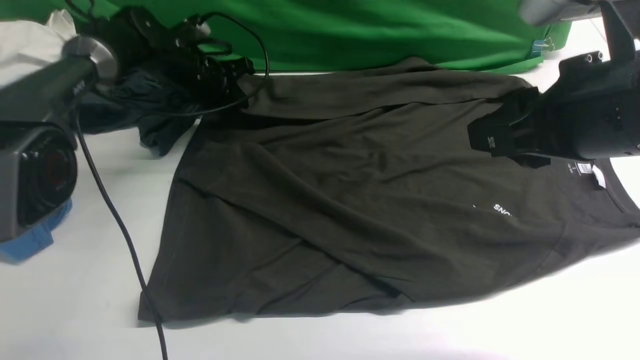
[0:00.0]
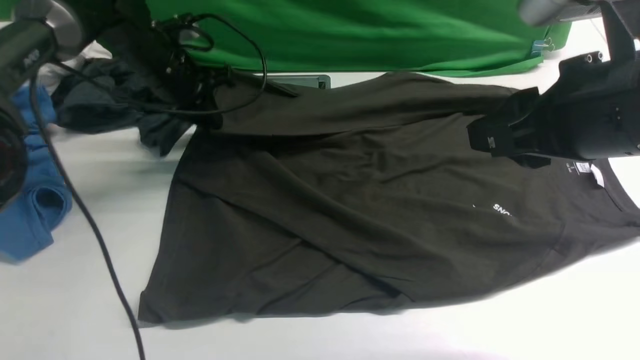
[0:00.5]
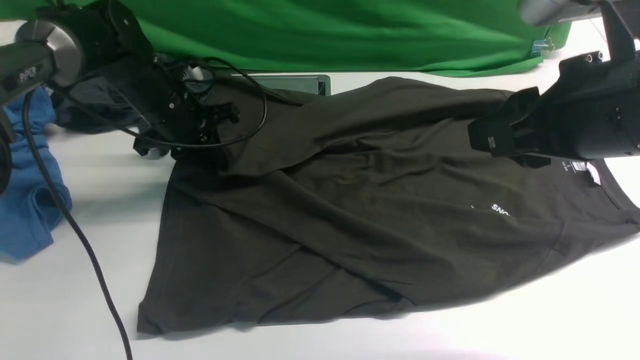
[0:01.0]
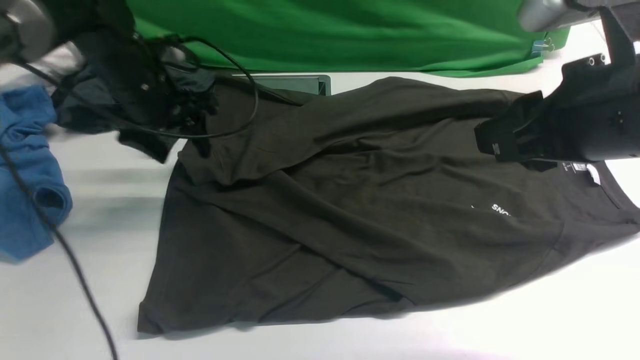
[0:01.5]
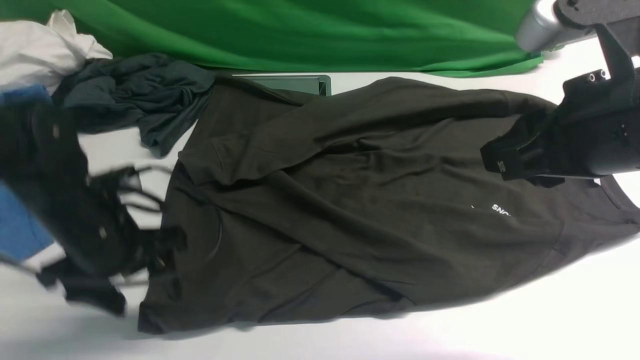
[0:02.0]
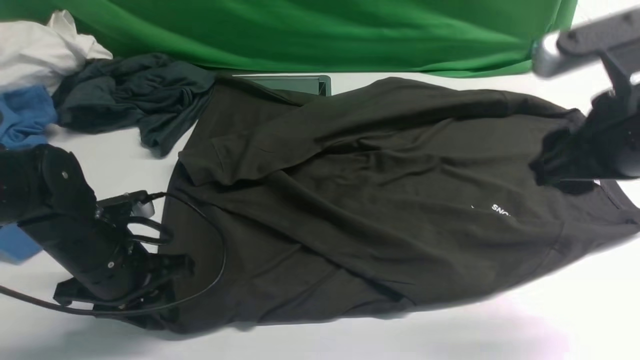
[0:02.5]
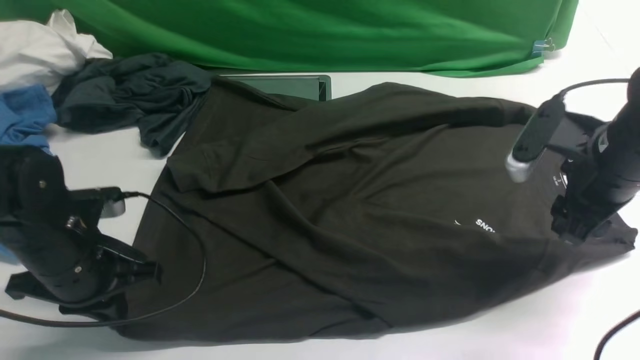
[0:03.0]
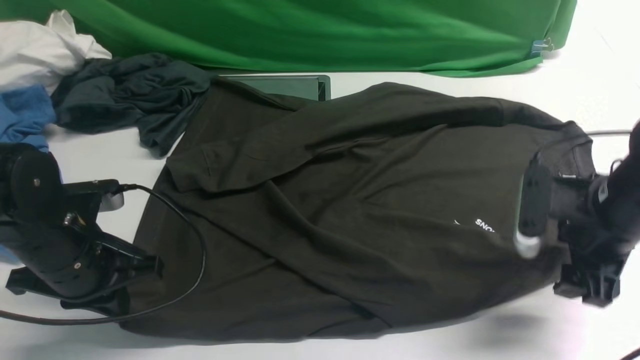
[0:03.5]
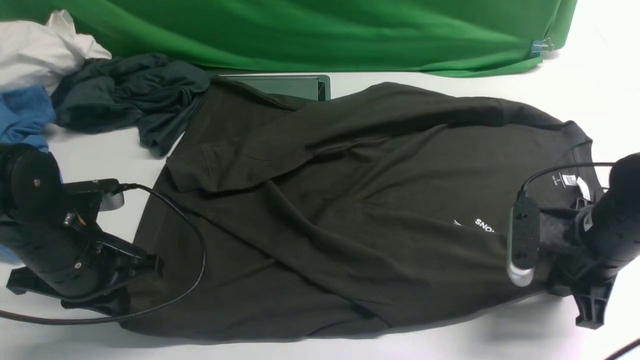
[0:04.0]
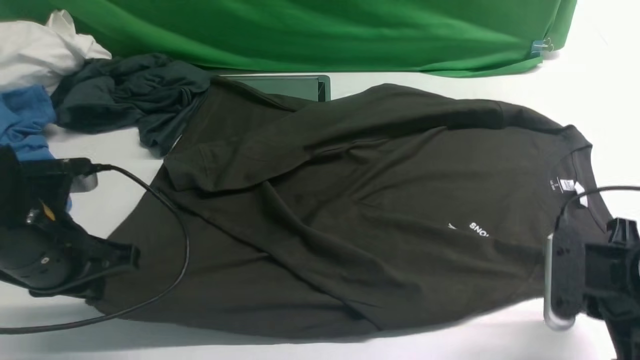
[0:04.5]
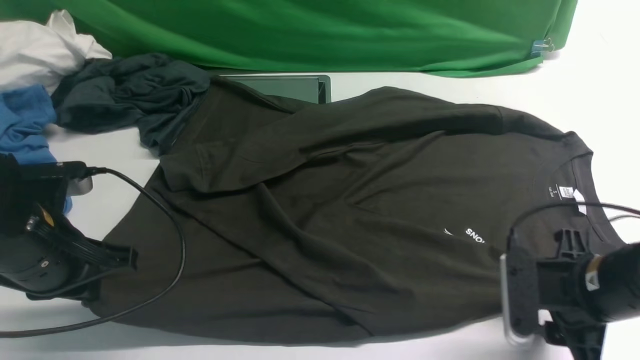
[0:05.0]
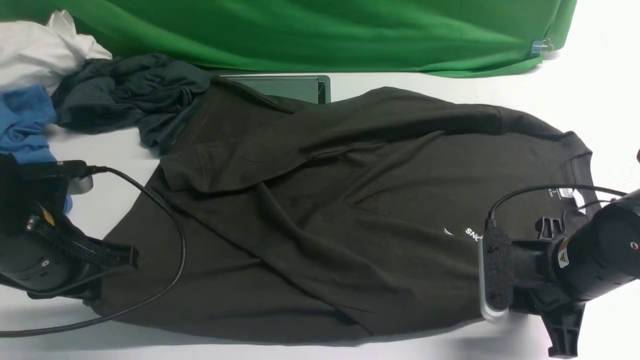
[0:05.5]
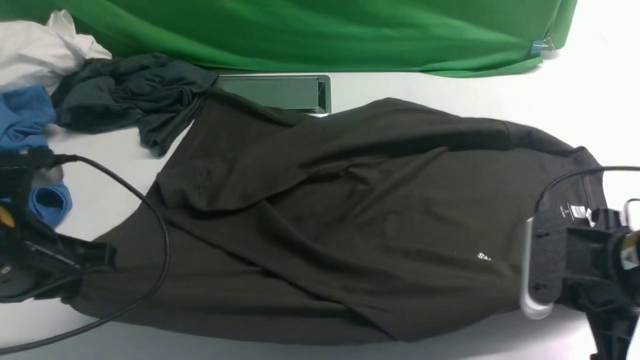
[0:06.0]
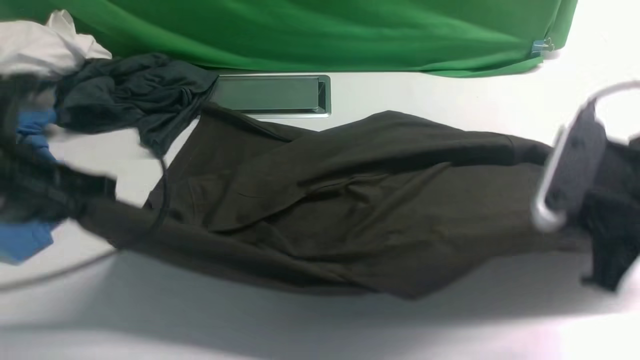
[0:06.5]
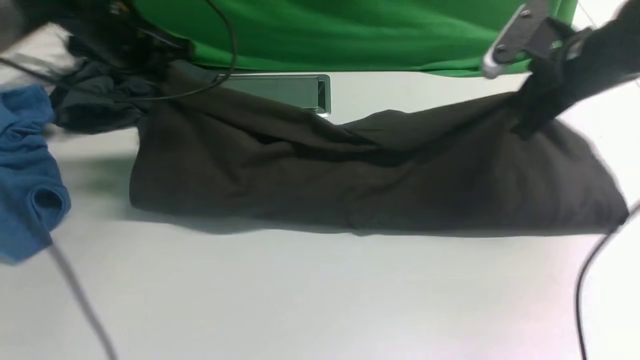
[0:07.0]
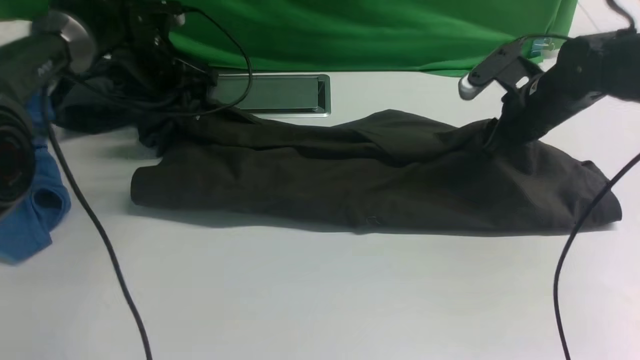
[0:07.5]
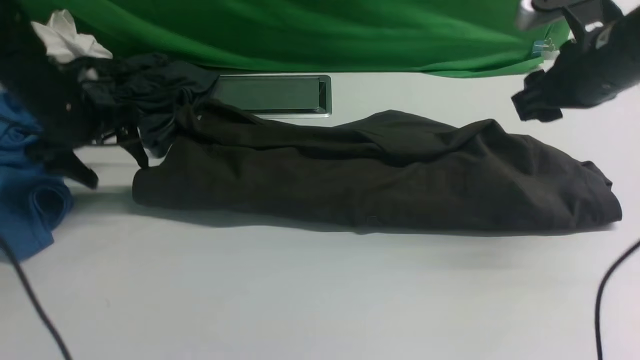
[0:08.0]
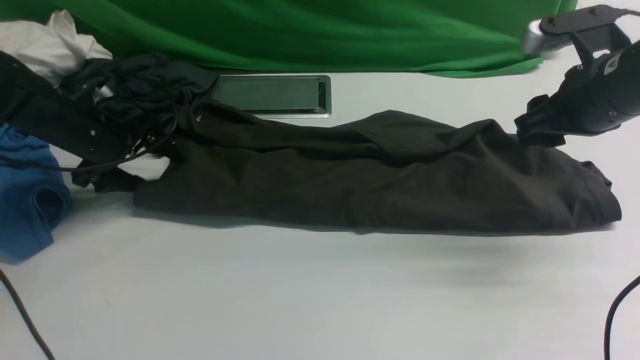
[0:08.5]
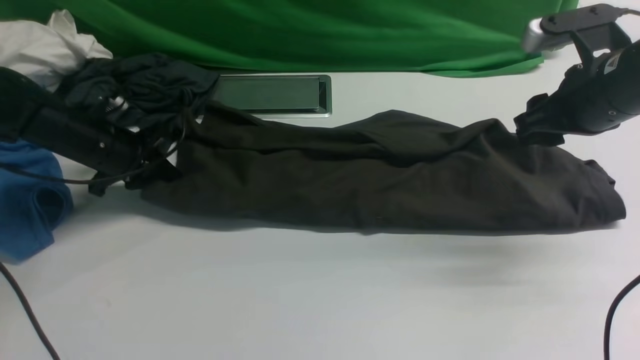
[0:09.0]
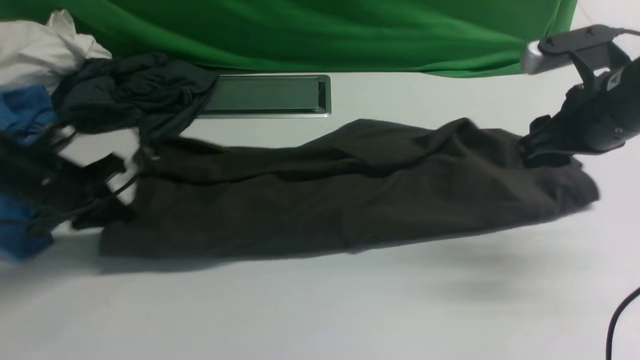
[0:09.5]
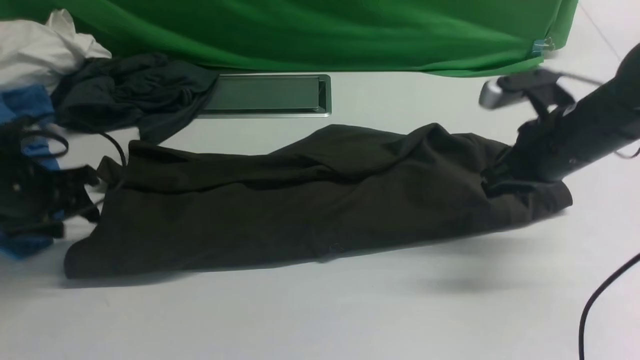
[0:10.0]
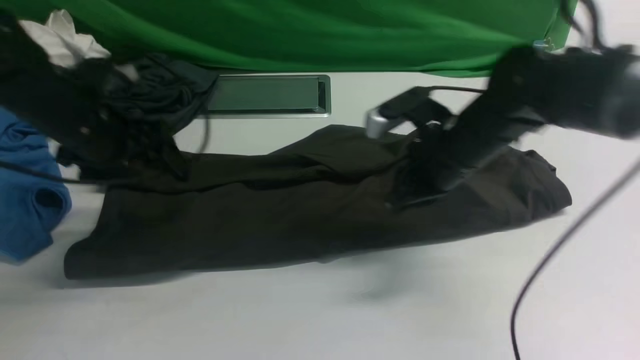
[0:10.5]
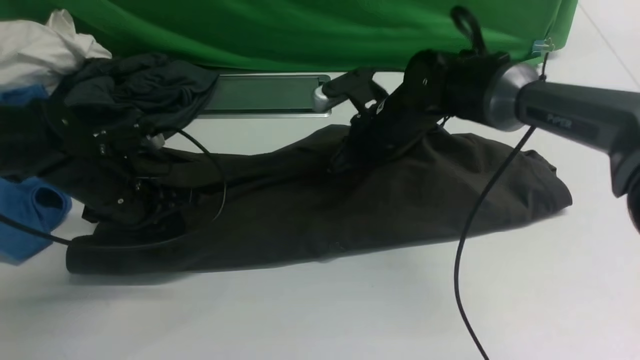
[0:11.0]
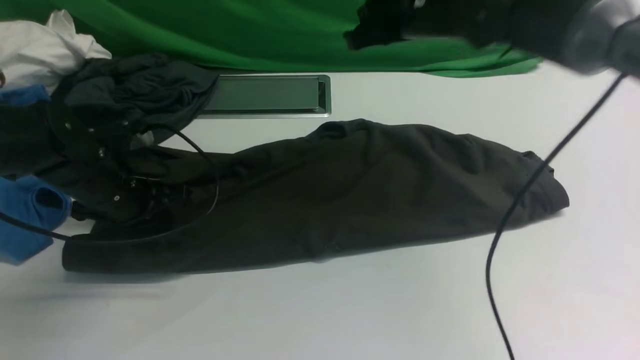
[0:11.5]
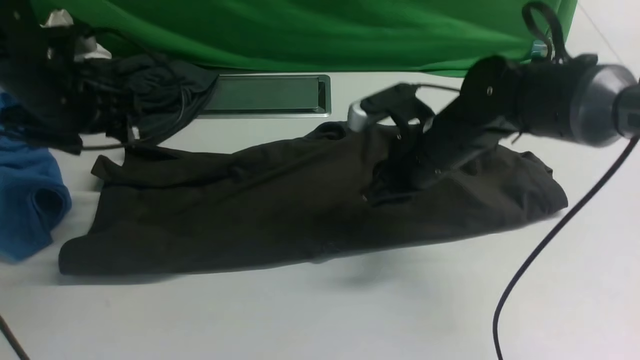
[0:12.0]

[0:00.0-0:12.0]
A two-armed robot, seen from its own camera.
Step, 0:00.5 to 0:01.5: use the left arm to drag and drop the cuff onto the cuff closest to the left arm.
Step, 0:02.0 to 0:05.5: use both arms simultaneously to clamp the lower edge of the clothing fabric.
Step, 0:06.0 to 0:07.5: use both arms to drag the lower edge of the fabric forward and fold it over the upper edge.
0:00.0 to 0:02.0: The left gripper goes approximately 25 cm backward, and opens up.
0:02.0 to 0:04.0: The right gripper is displaced downward by about 20 cm, and opens, then closes again. Meanwhile the left gripper closes.
0:04.0 to 0:06.0: The left gripper travels upward by some 5 cm; the right gripper heads backward, covering some 5 cm, and opens and closes again.
0:06.0 to 0:08.0: The right gripper travels forward and upward by approximately 20 cm, and opens its fingers. Meanwhile the left gripper shifts some 25 cm forward, and opens up.
0:08.0 to 0:10.0: The left gripper goes roughly 10 cm backward, and closes; the right gripper travels downward by approximately 5 cm, and closes its fingers.
0:10.0 to 0:12.0: The right gripper shifts roughly 10 cm to the left. Meanwhile the left gripper shifts roughly 5 cm to the right, and closes, then reopens.

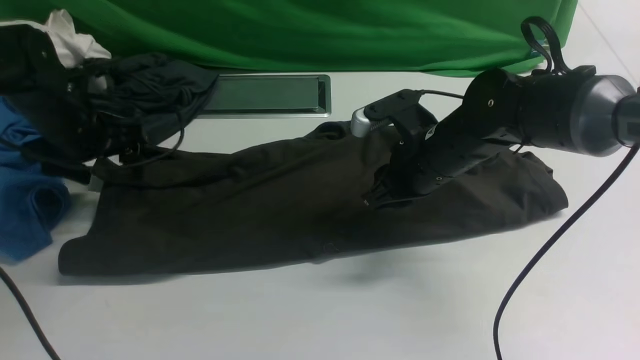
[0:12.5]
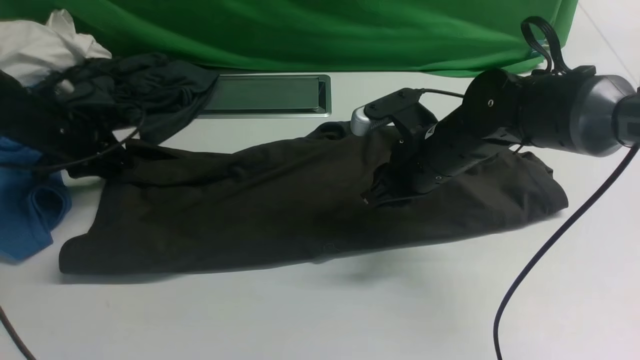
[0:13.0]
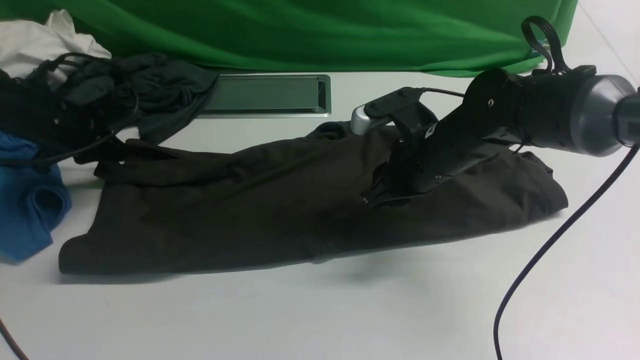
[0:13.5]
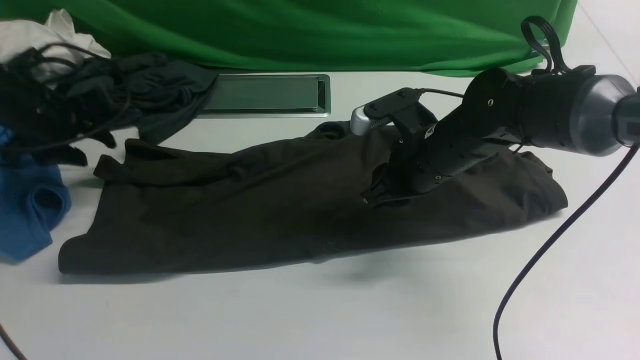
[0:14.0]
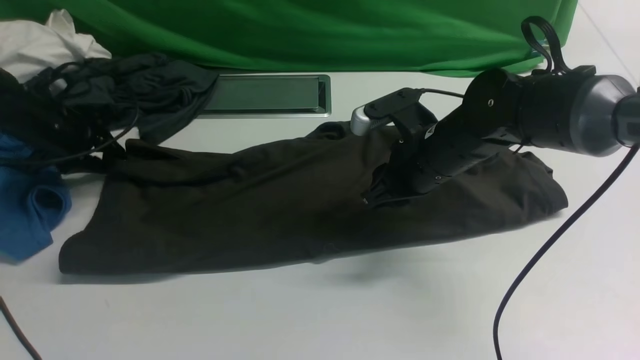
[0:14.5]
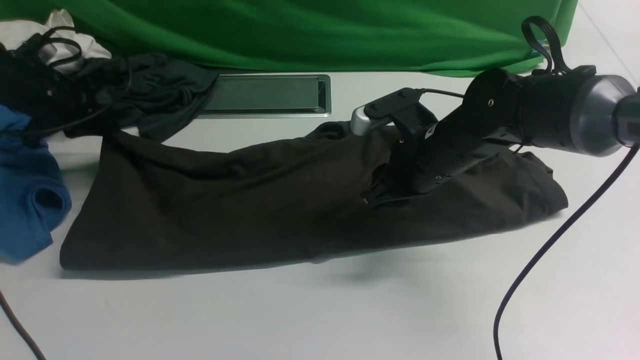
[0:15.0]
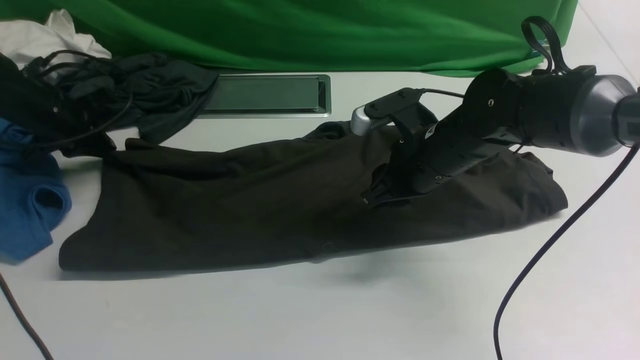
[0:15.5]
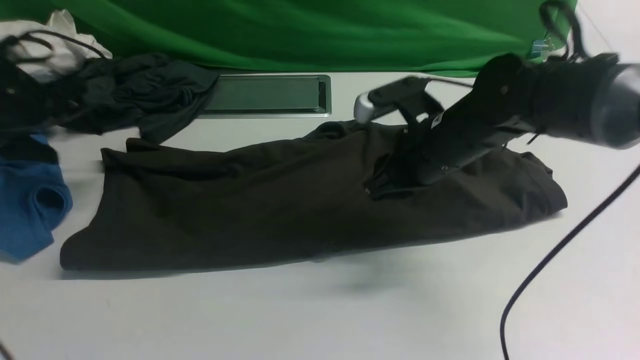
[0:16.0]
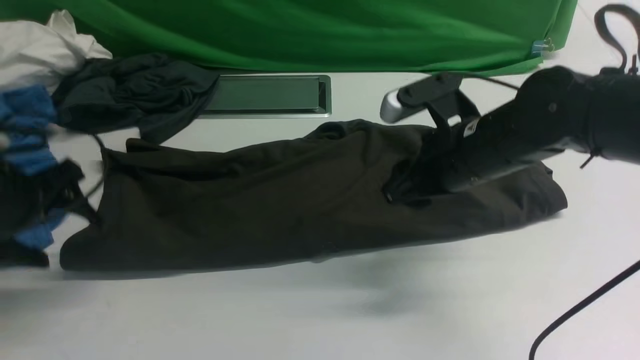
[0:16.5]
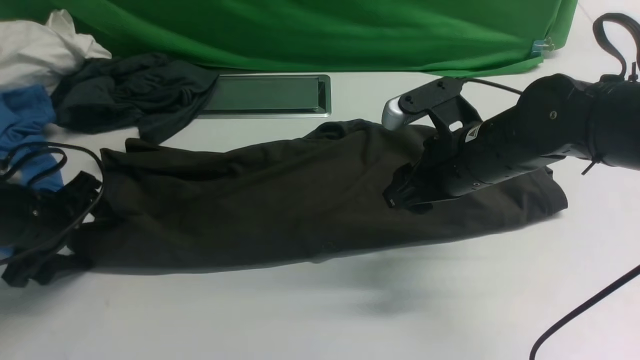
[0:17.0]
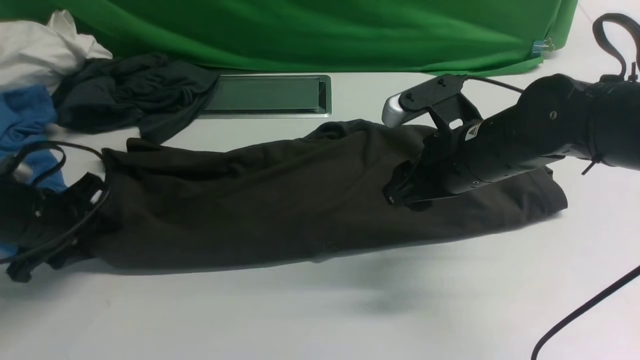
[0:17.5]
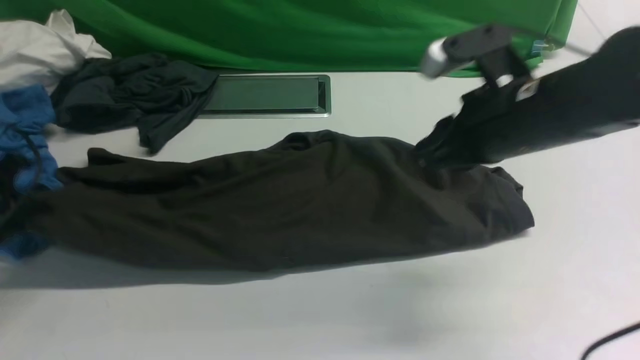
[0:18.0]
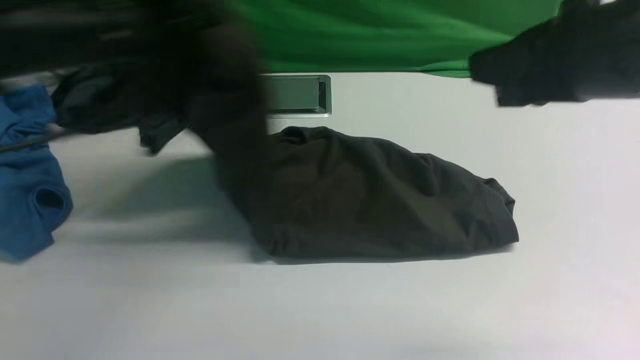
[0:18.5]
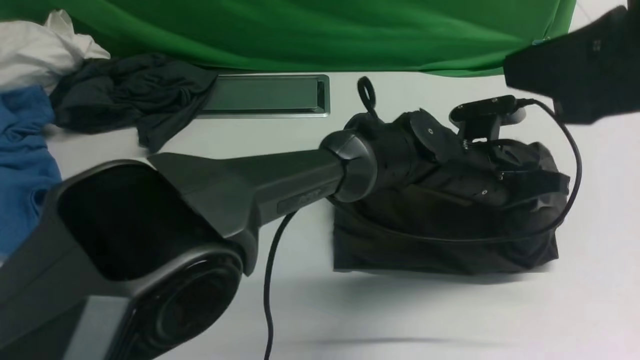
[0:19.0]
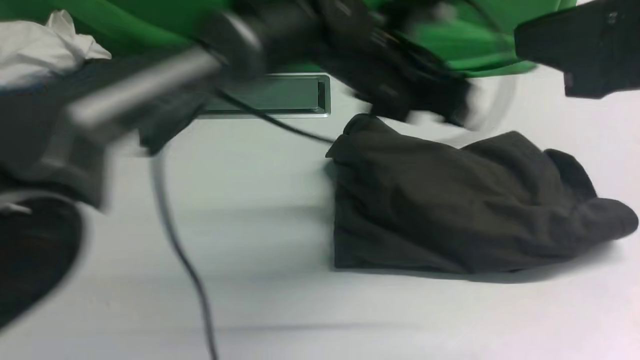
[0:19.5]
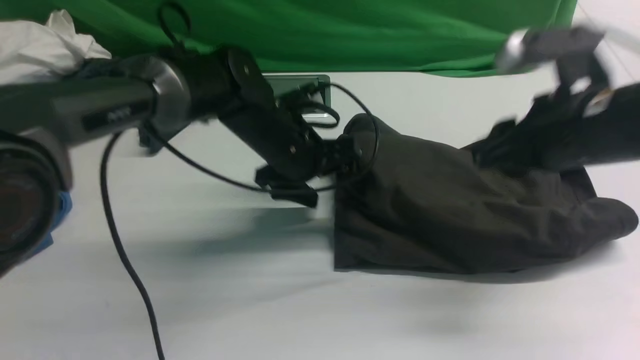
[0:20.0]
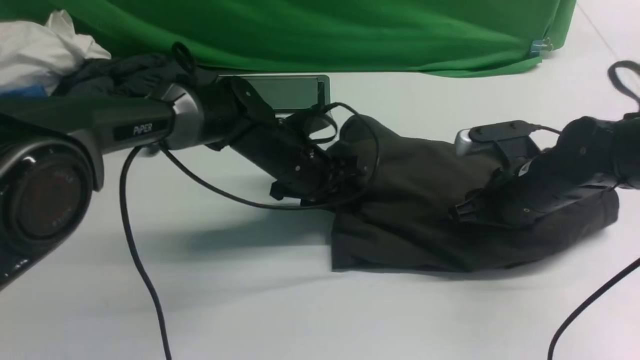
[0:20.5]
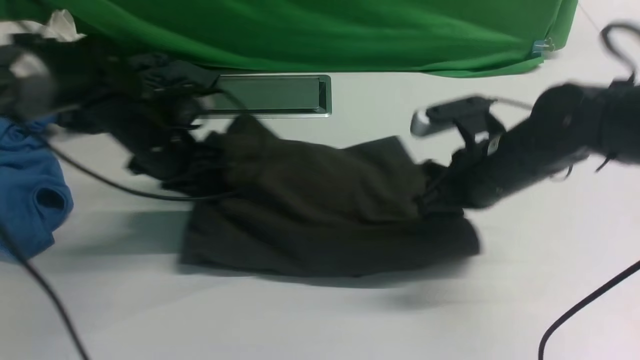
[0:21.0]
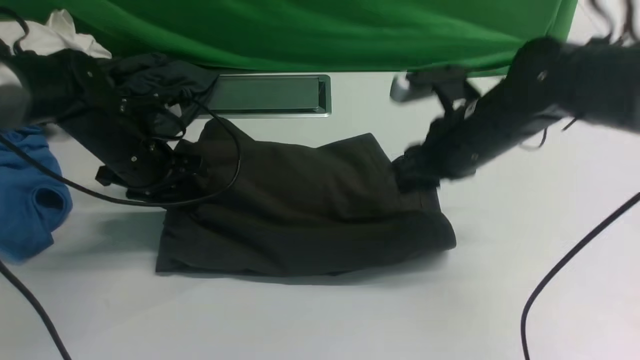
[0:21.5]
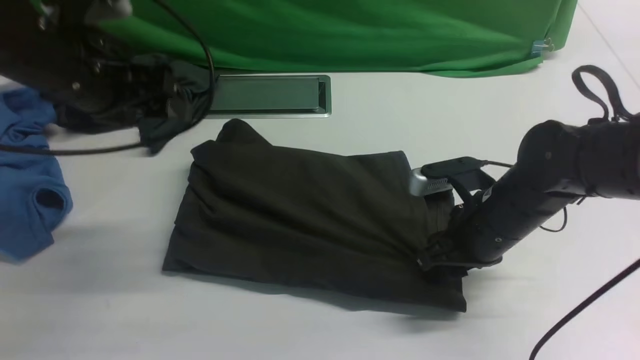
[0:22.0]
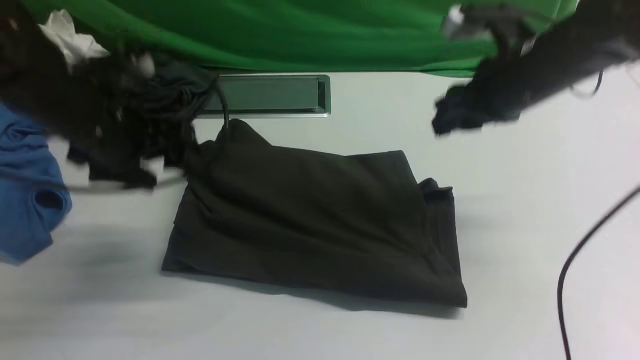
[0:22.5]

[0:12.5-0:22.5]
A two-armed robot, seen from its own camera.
Step, 0:12.5 to 0:17.5: Hold the left edge of the fabric with your left arm.
Step, 0:18.0 to 0:19.0: Drag the left edge of the fabric to the left with your left arm and fold it to the right edge.
0:12.5 to 0:14.5: The left gripper travels to the left by about 5 cm, and closes.
0:14.5 to 0:16.5: The left gripper shifts roughly 15 cm backward, and opens its fingers; the right gripper ends up about 5 cm from where it was, and opens up.
0:16.5 to 0:18.5: The left gripper heads to the right, upward and forward, covering about 20 cm, and closes up; the right gripper travels upward and backward by approximately 20 cm, and closes.
0:18.5 to 0:20.5: The left gripper moves downward, roughly 15 cm, travels to the right and back again, about 30 cm each way, and opens, then closes again. The right gripper is displaced downward and forward by about 25 cm, and opens.
0:20.5 to 0:22.5: The left gripper goes roughly 20 cm to the left, upward and backward, and opens up, while the right gripper swings up and down, about 10 cm each way, with 2 reversals.
